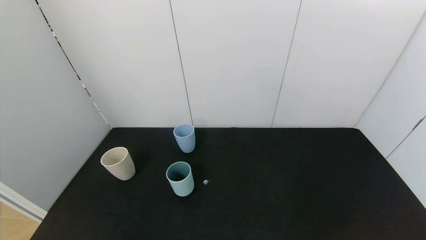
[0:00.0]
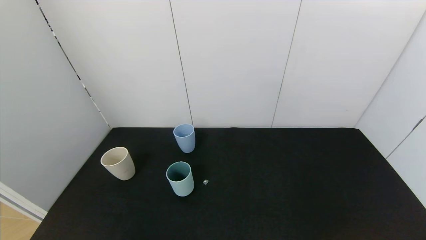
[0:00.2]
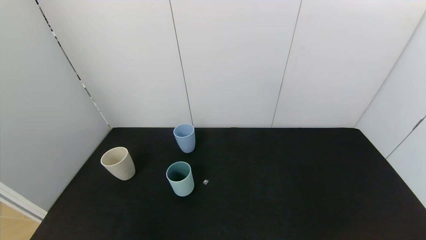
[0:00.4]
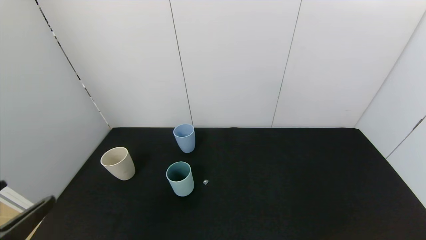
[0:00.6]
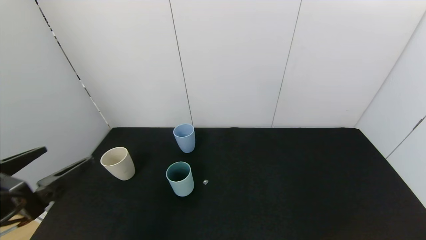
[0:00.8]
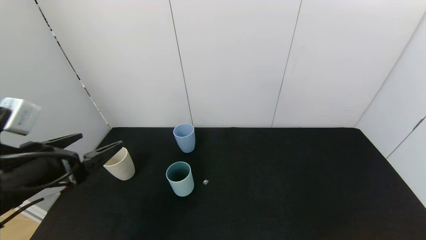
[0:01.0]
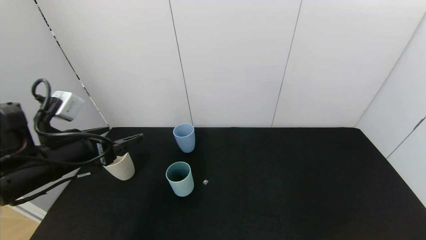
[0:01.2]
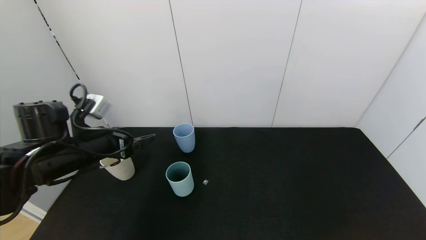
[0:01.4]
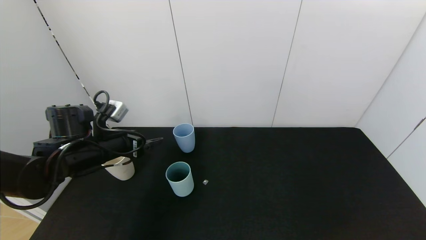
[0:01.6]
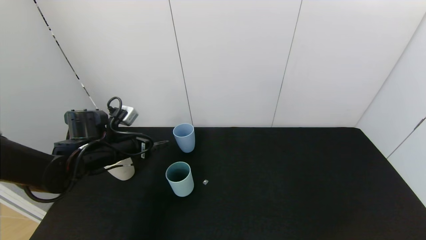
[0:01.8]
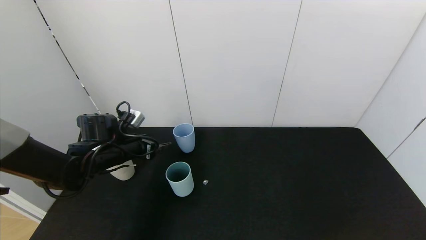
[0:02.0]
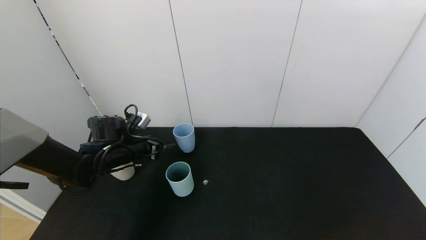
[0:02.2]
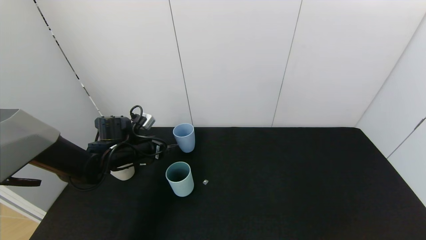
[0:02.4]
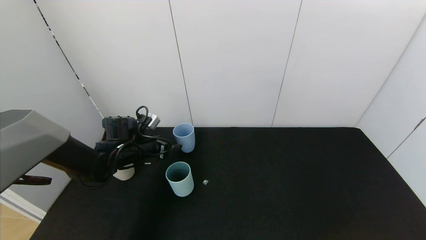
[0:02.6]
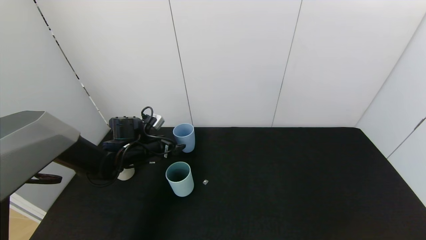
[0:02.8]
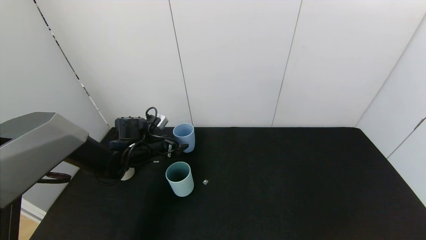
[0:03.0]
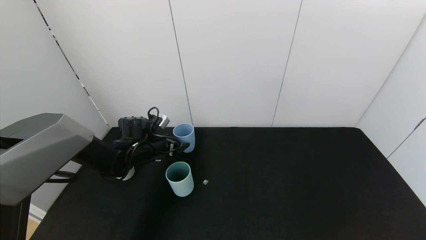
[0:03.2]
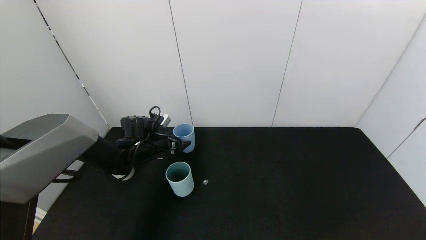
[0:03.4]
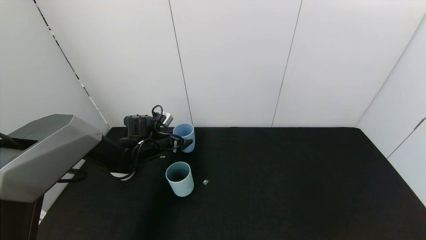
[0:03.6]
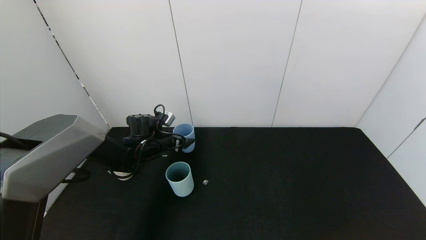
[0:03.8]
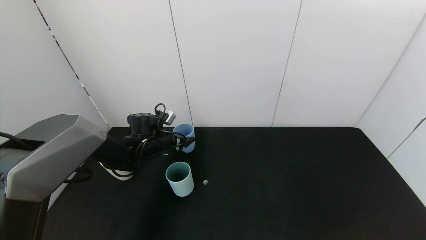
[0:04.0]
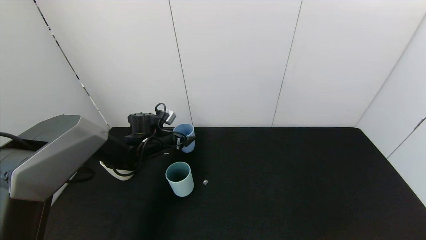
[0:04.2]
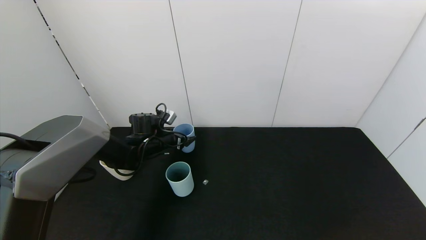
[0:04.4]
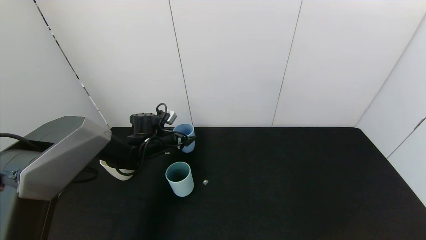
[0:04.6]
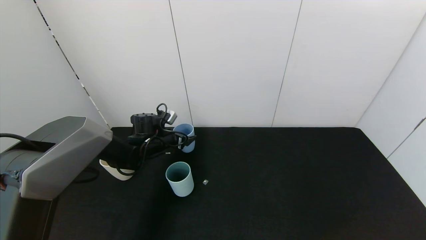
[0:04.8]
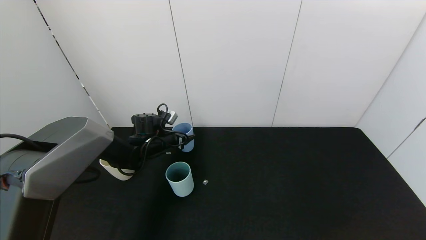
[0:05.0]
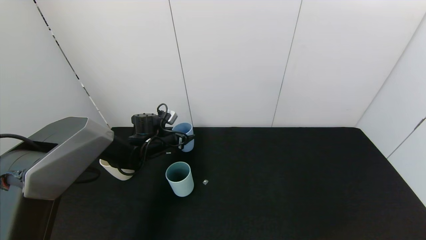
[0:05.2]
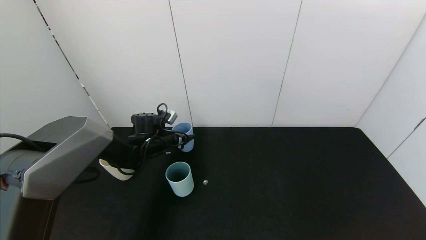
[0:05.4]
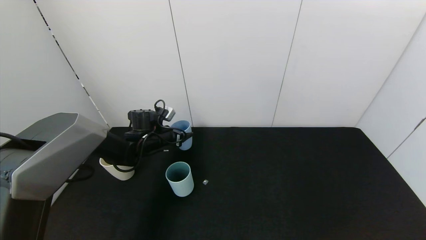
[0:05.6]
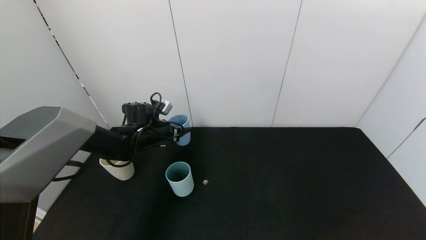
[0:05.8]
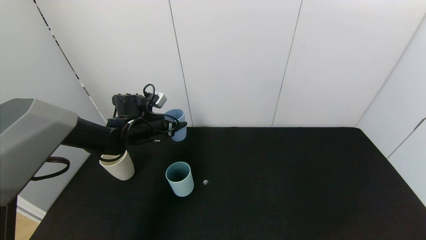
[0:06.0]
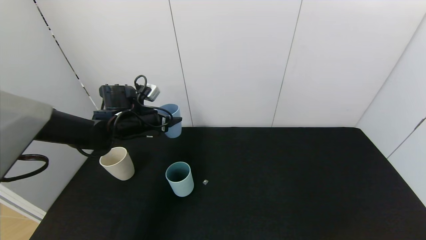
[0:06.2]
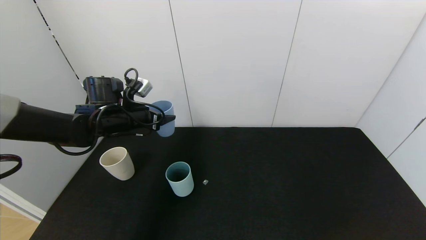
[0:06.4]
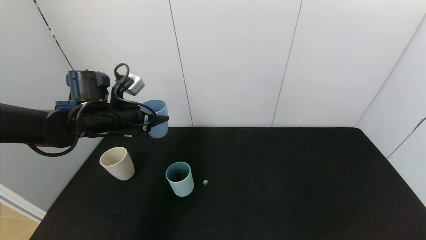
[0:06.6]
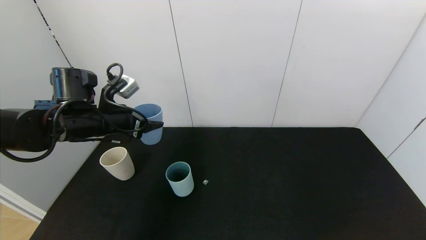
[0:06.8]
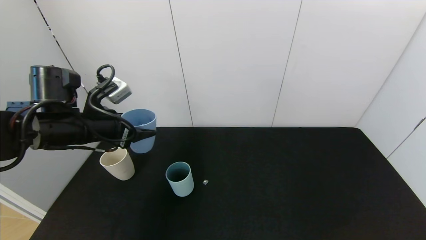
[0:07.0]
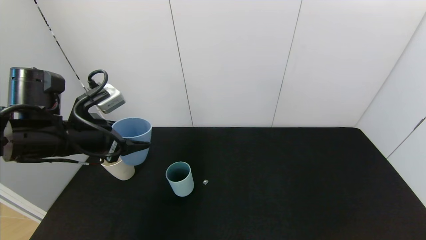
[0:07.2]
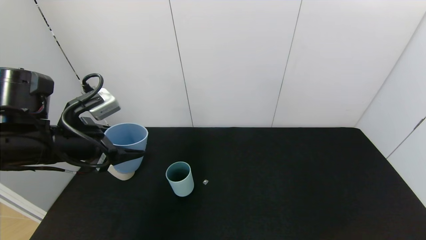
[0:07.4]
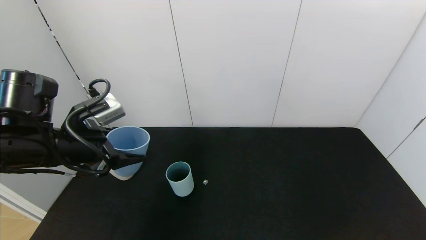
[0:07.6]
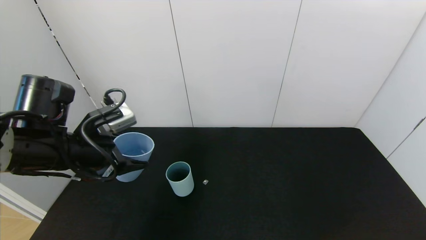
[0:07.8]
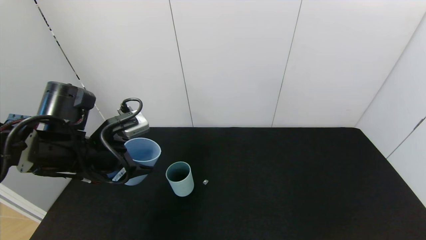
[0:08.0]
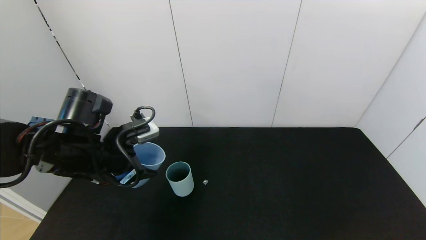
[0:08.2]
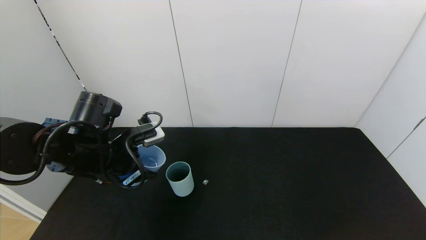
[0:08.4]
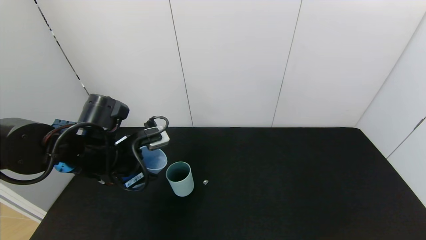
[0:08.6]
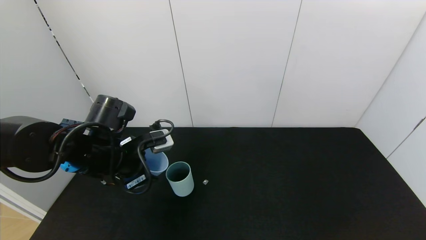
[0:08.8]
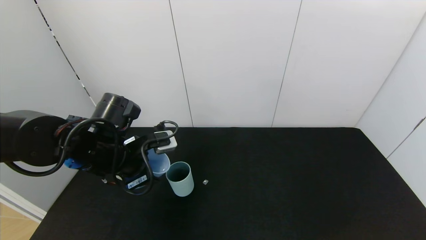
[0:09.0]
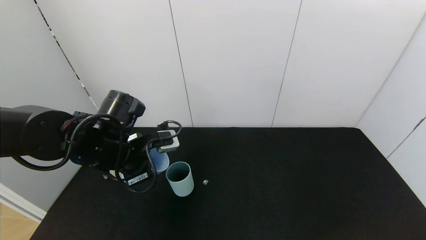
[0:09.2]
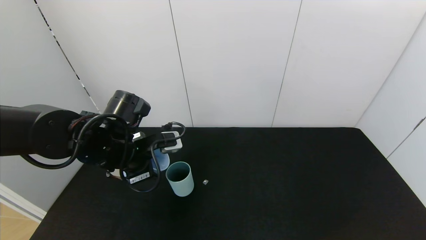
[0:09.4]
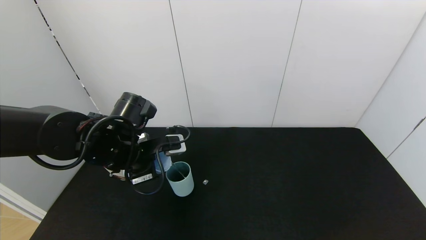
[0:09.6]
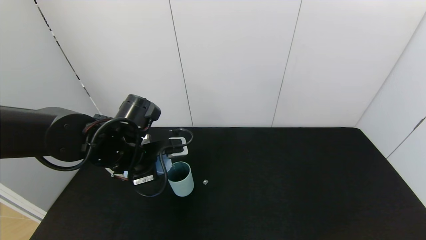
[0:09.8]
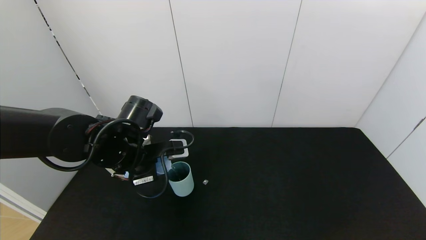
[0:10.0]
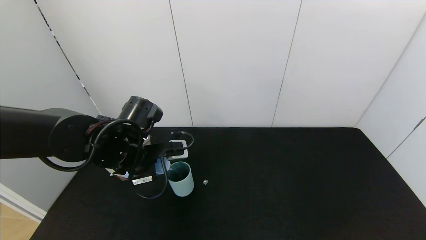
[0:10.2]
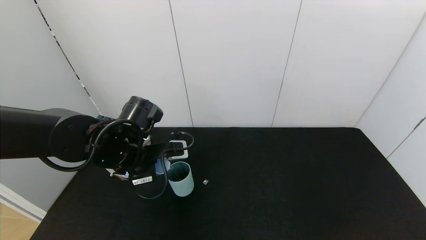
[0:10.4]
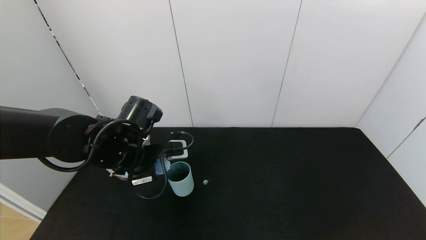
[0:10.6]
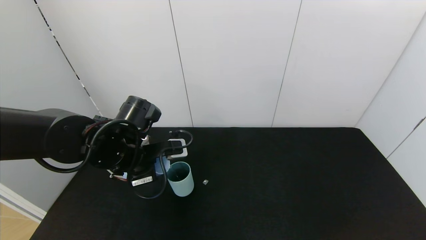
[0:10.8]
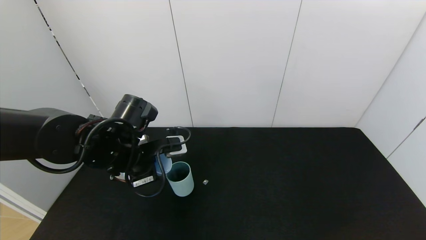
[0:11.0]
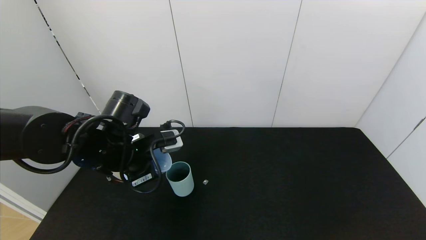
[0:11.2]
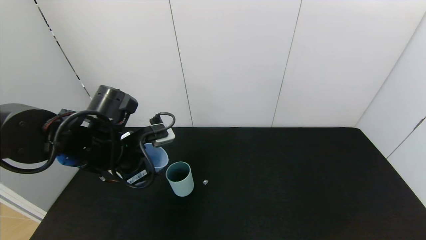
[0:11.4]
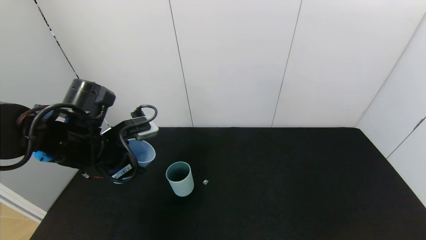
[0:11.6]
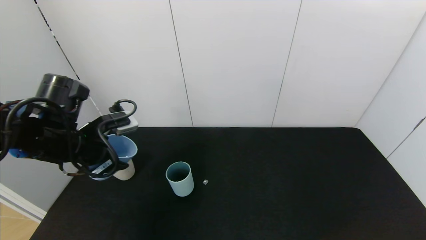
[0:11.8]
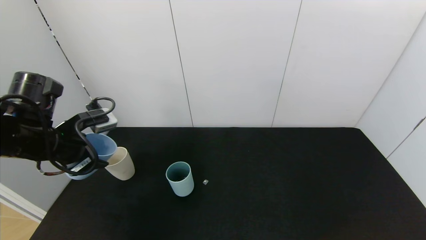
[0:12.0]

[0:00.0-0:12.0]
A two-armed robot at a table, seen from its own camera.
Task of the whole recording: use the gripper to pour the water into the other two cups on black table.
Step, 0:00.0 to 0:05.0: Grasp the blue cup with the left gripper.
Step, 0:05.2 to 0:11.4: Pour water from blue cup to green cup with the left gripper.
0:00.0 to 0:01.6: The left gripper moves forward, about 35 cm.
0:01.6 to 0:03.0: The left gripper moves forward and downward, approximately 15 cm.
0:03.0 to 0:04.4: The grippers move only a little.
0:04.4 to 0:06.0: The left gripper travels upward by some 5 cm, and closes its fingers.
0:06.0 to 0:07.6: The left gripper is displaced backward and upward by about 20 cm.
0:07.6 to 0:09.0: The left gripper shifts roughly 5 cm to the right.
0:09.0 to 0:10.4: The grippers make only small movements.
0:10.4 to 0:12.0: The left gripper goes about 15 cm to the left.

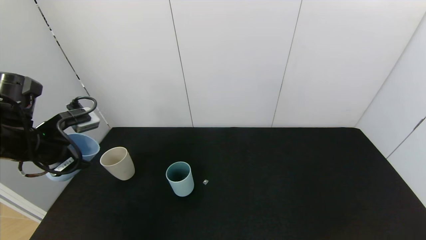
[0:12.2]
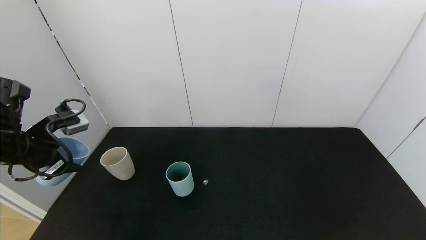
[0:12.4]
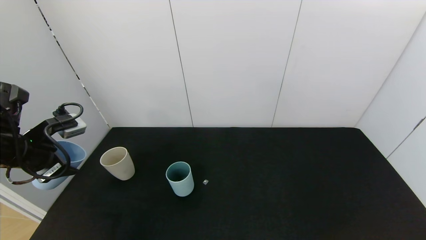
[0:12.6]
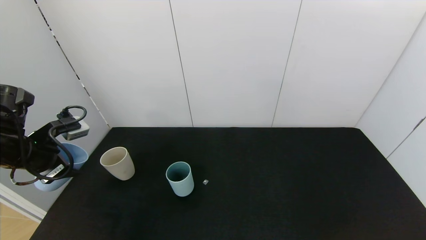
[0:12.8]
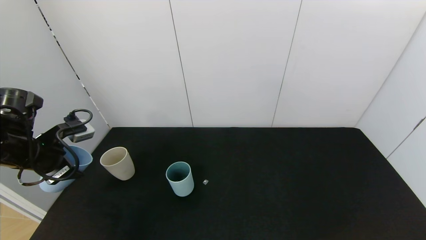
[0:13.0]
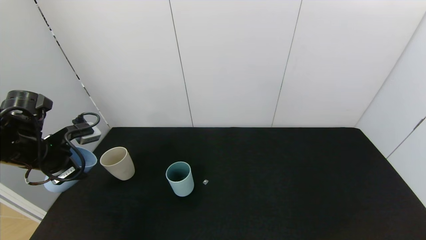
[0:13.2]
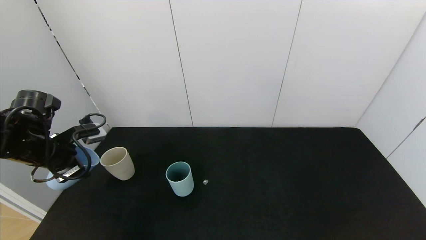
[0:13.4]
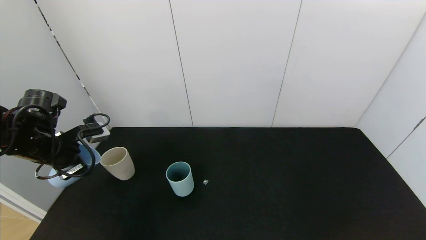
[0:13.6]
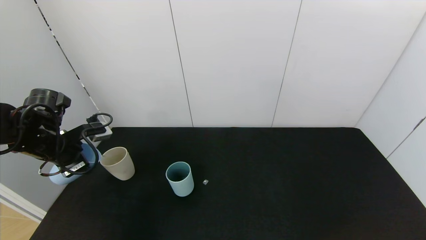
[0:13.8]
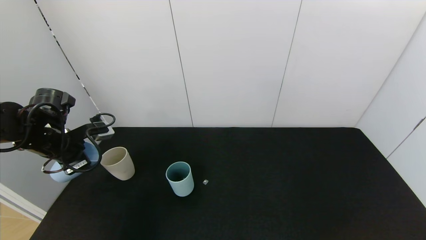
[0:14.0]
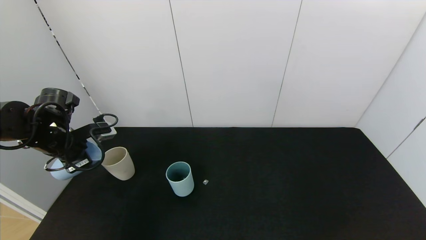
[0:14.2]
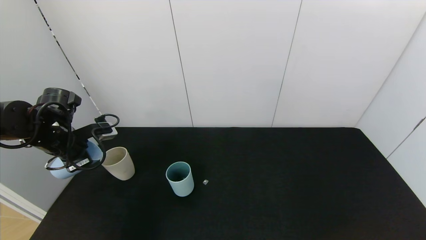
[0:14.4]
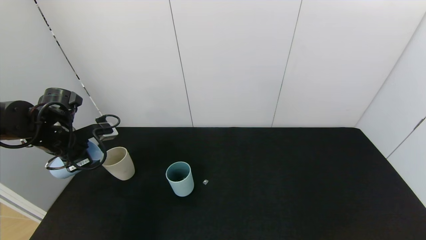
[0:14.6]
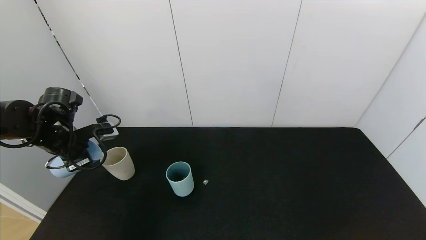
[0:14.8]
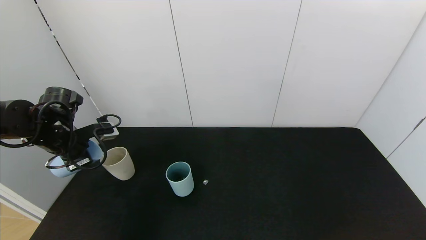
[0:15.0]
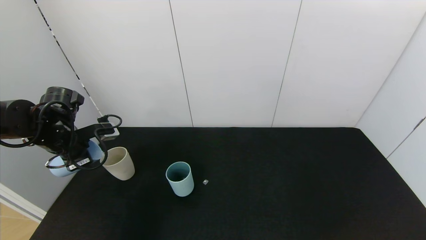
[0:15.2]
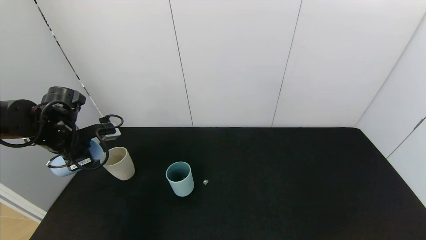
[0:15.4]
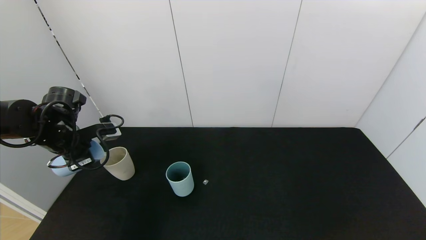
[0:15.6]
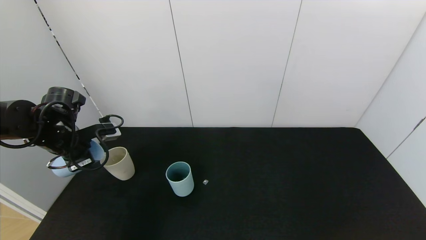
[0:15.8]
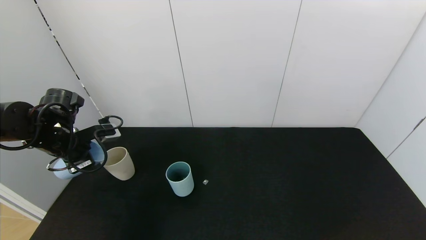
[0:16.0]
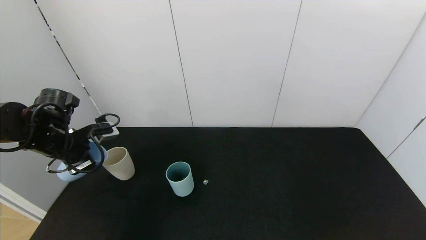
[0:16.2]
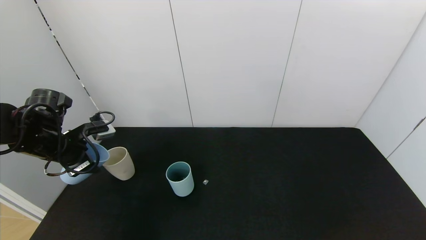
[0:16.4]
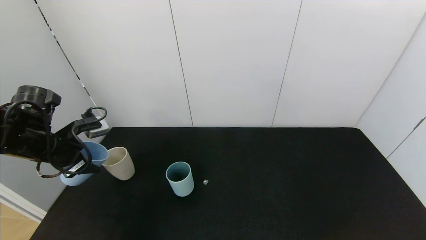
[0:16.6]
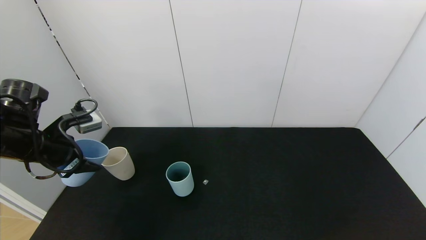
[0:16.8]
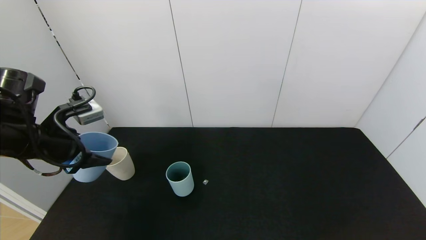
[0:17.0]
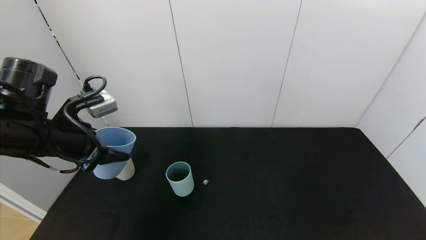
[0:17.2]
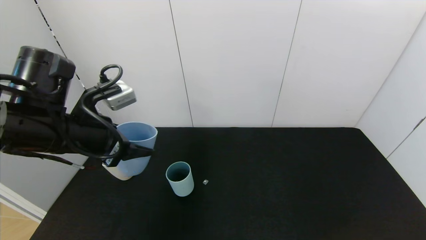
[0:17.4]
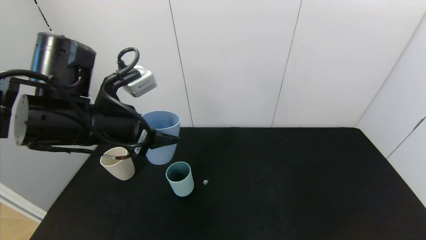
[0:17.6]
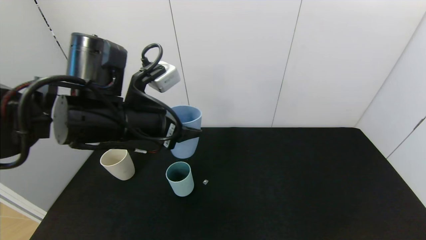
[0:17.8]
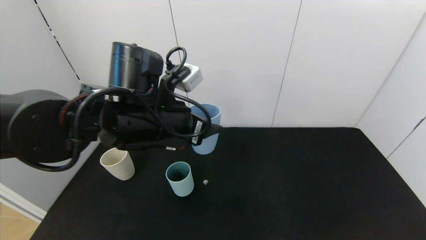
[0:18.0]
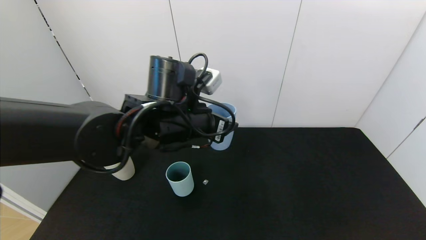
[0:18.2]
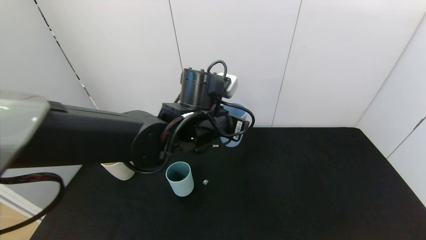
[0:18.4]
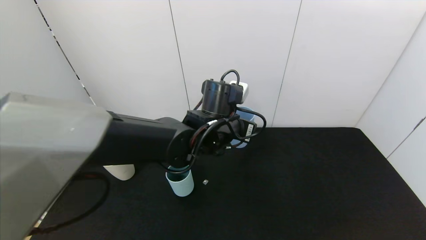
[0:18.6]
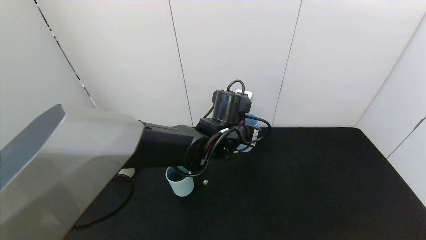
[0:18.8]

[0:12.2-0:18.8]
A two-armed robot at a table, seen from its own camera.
Task of the whole recording: use the gripper to pour the water into the other two cups on black table.
Step, 0:12.2 to 0:16.6: Pour water from blue cup to white cup with the left gripper.
0:12.2 to 0:13.8: The left gripper moves forward, some 5 cm.
0:13.8 to 0:15.4: The grippers move only a little.
0:15.4 to 0:17.2: The left gripper goes approximately 15 cm backward, to the right and upward.
0:17.2 to 0:18.8: The left gripper shifts approximately 30 cm to the right.